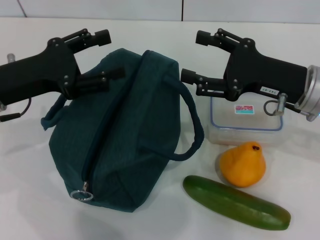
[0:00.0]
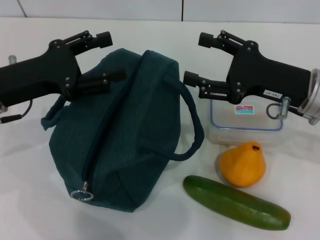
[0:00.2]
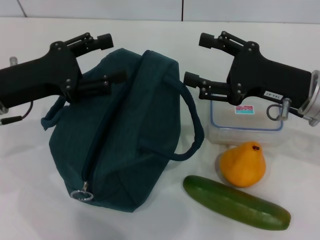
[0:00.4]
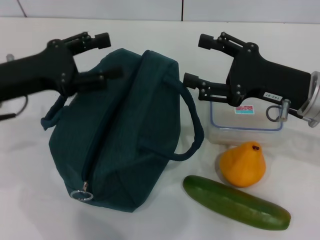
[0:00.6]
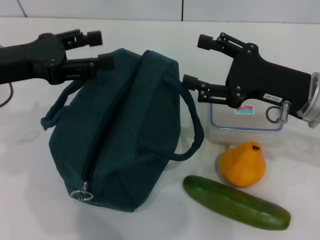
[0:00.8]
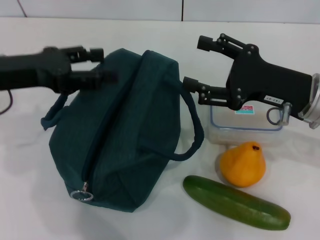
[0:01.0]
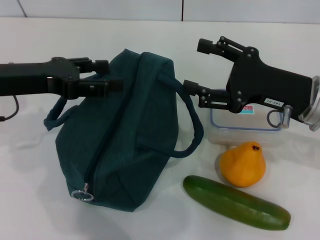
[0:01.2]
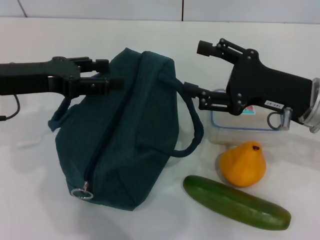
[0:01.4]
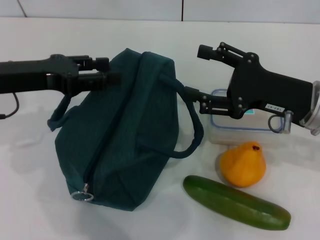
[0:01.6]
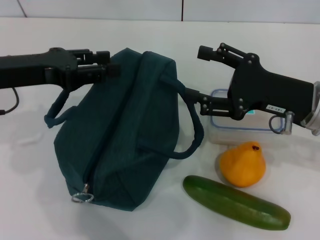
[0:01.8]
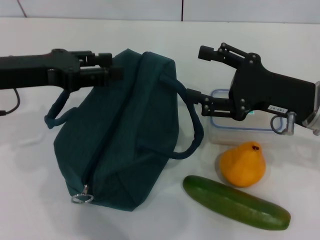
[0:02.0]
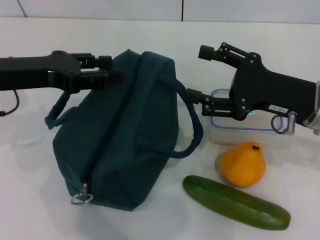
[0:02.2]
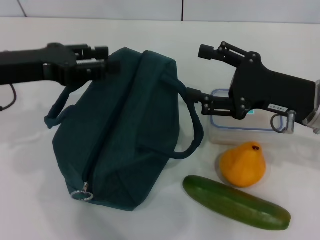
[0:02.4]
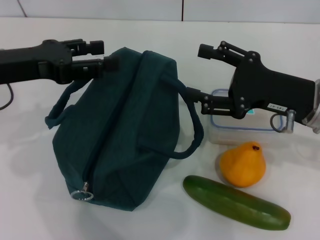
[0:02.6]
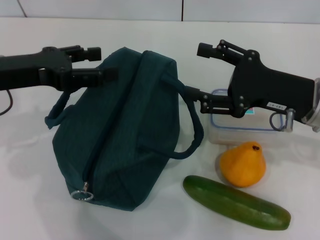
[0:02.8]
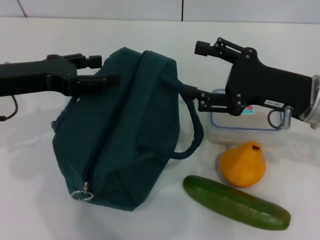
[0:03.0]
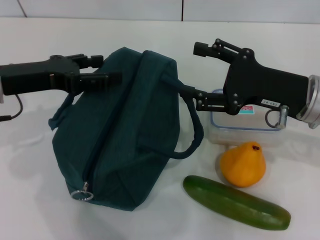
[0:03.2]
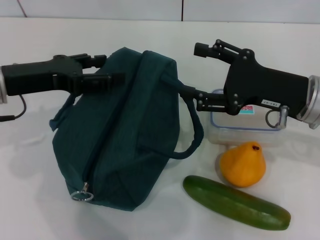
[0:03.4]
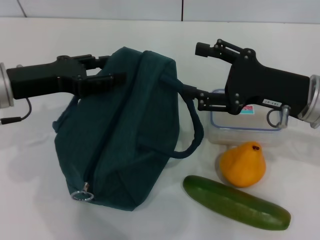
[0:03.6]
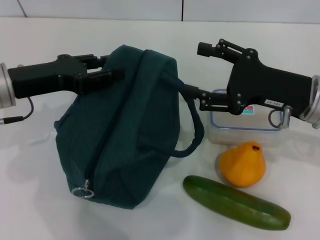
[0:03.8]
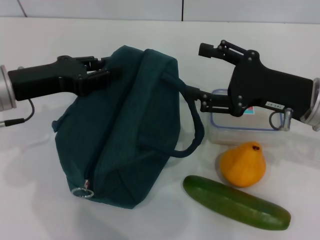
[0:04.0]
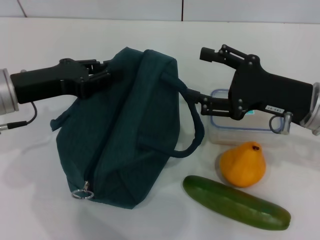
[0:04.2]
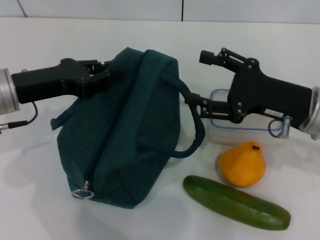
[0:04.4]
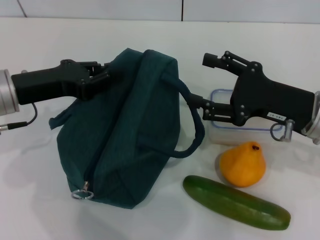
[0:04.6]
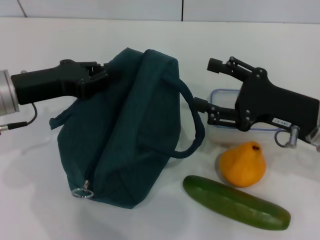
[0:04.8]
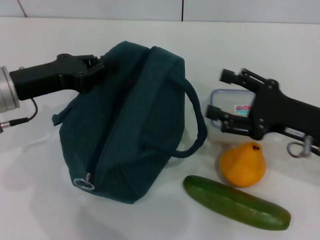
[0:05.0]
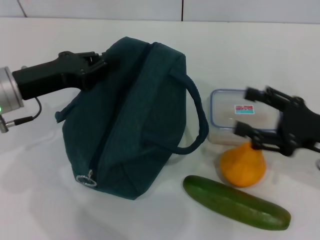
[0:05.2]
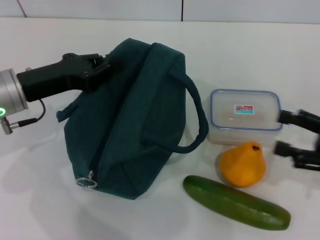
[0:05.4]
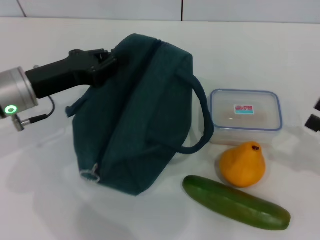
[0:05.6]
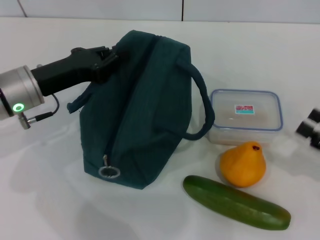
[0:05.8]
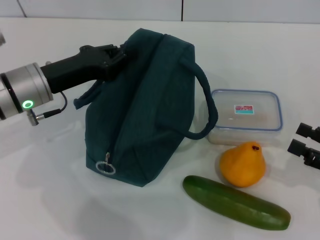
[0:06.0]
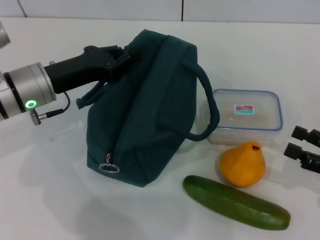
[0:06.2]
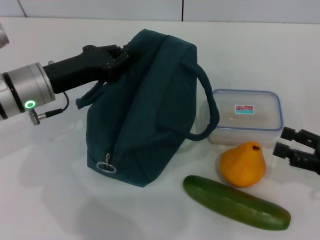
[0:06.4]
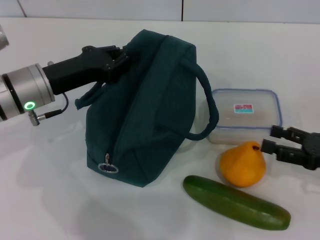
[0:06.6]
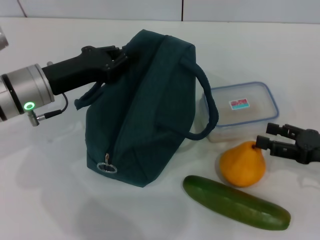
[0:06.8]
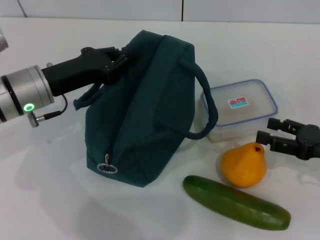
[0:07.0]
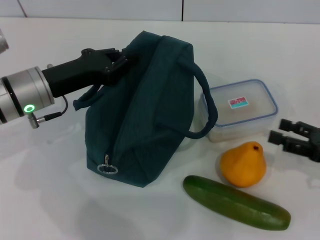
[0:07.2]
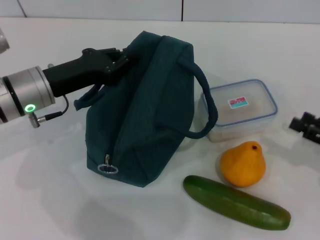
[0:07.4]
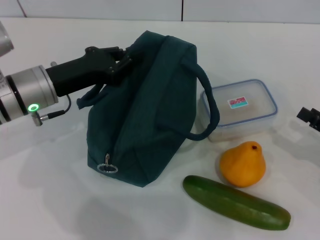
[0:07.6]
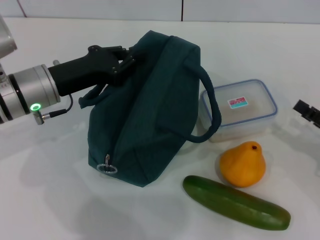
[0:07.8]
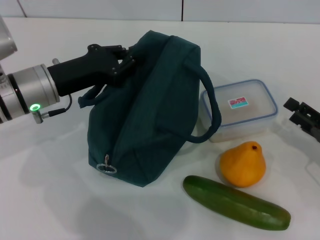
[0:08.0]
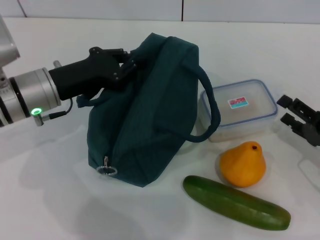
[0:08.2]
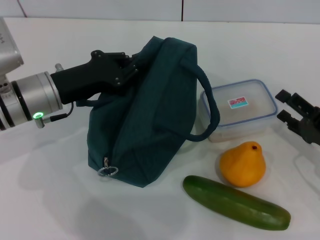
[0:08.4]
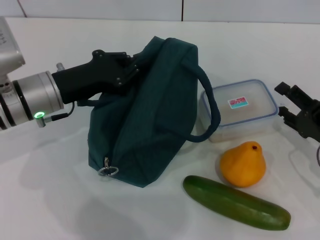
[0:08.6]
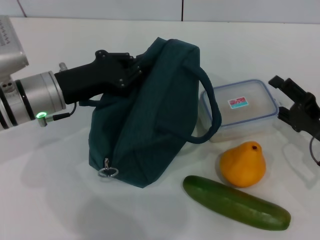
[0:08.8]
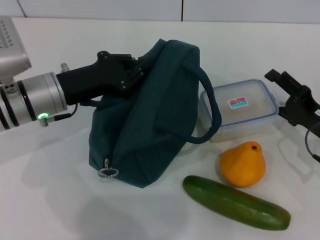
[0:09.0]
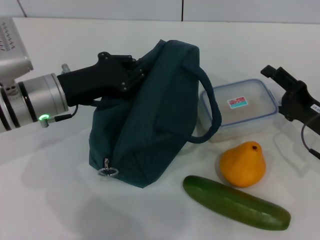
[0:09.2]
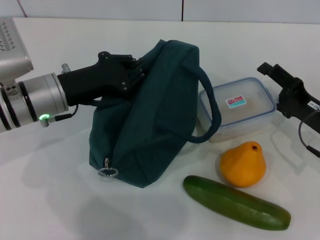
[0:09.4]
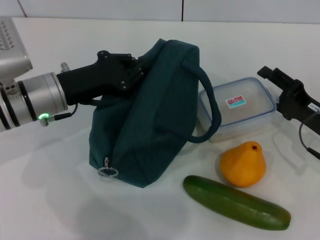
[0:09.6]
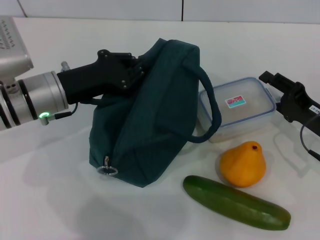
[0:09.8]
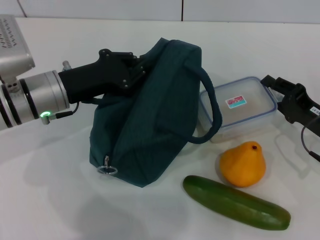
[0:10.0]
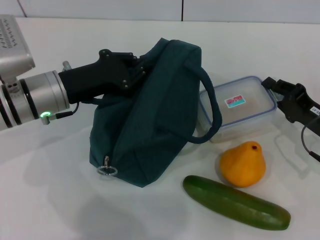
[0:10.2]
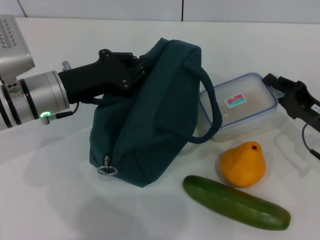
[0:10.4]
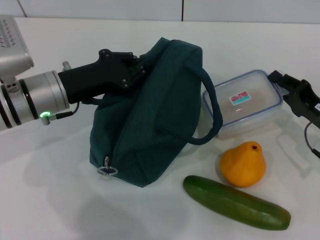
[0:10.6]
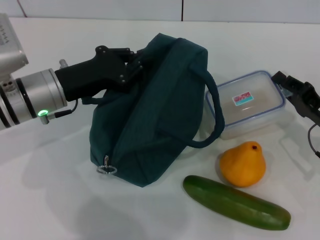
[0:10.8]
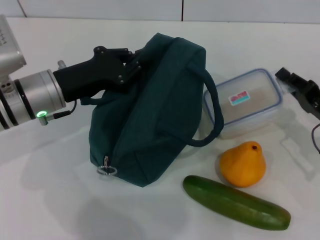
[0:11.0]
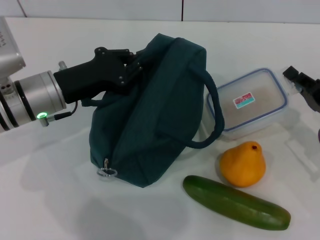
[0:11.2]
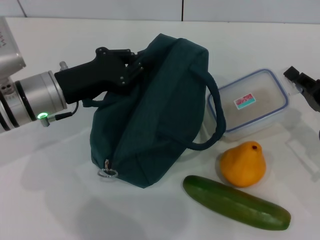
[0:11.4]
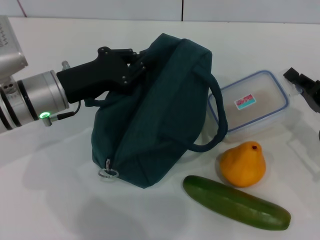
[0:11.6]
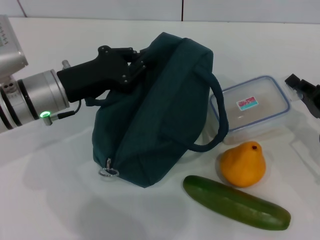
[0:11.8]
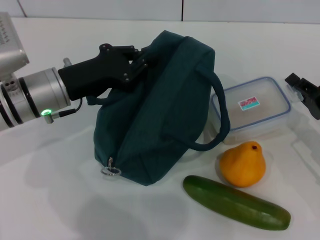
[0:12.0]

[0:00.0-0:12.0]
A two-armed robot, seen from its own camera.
Step, 0:00.0 to 0:06.2: Hold the lunch bag with your left hand.
Step, 0:06.4 to 0:11.0: Pick up the lunch box with your right hand.
0:01.6 to 0:03.0: There are only small adjustments of the grippers.
0:03.0 to 0:04.4: The left gripper closes.
0:04.4 to 0:06.0: The right gripper is displaced to the right, backward and downward by about 15 cm.
0:07.6 to 0:09.0: The right gripper goes about 10 cm to the left and forward.
0:09.0 to 0:10.4: The right gripper closes.
0:10.4 to 0:12.0: The grippers make only small movements.

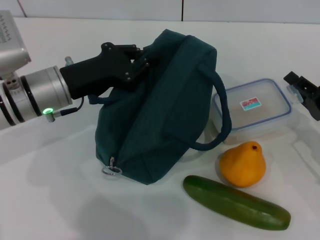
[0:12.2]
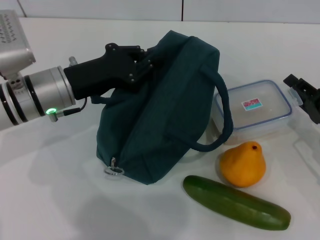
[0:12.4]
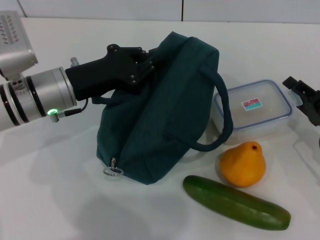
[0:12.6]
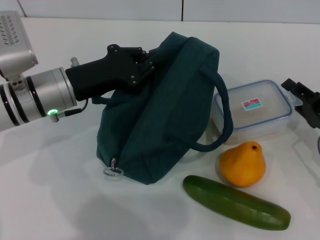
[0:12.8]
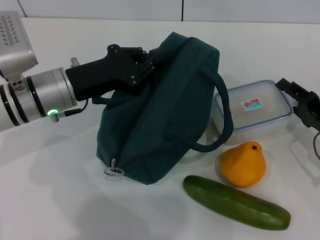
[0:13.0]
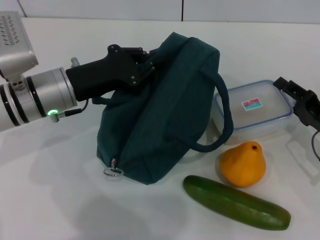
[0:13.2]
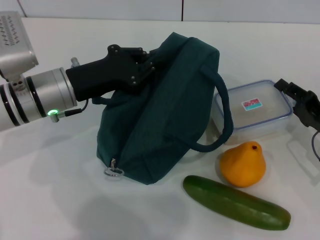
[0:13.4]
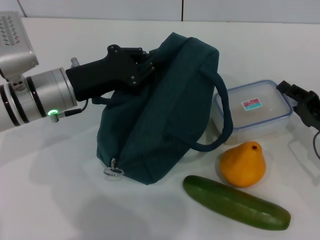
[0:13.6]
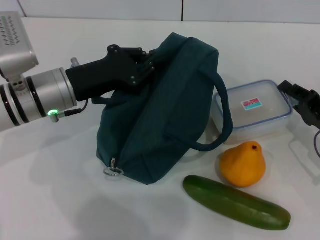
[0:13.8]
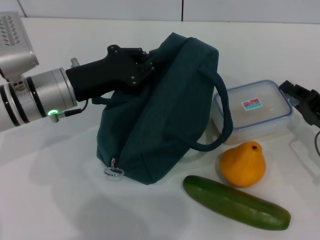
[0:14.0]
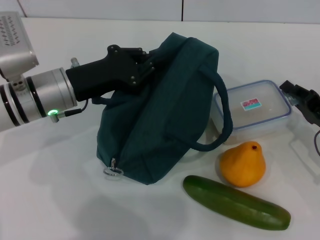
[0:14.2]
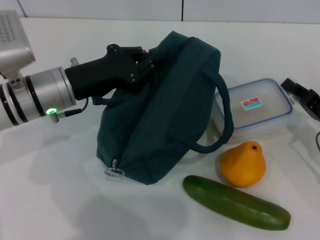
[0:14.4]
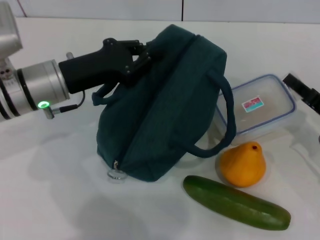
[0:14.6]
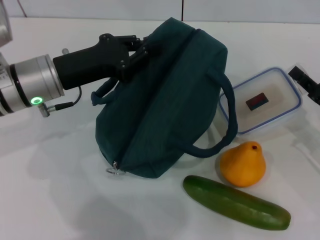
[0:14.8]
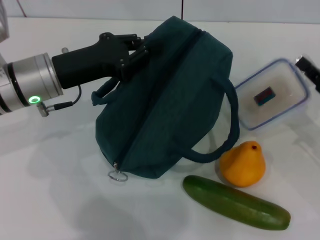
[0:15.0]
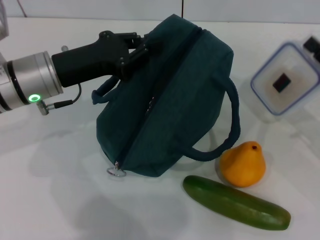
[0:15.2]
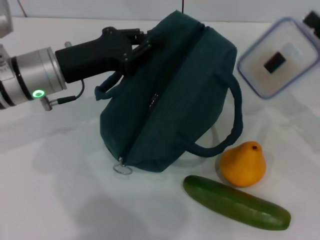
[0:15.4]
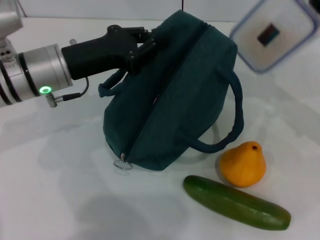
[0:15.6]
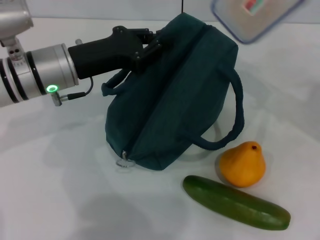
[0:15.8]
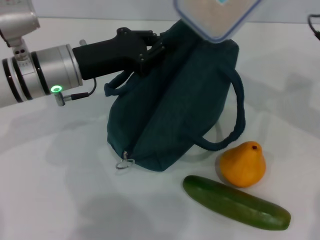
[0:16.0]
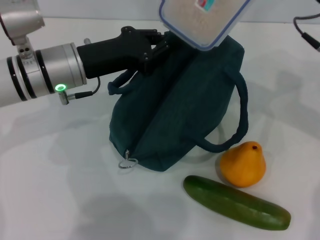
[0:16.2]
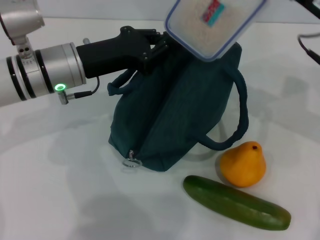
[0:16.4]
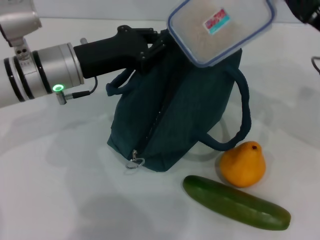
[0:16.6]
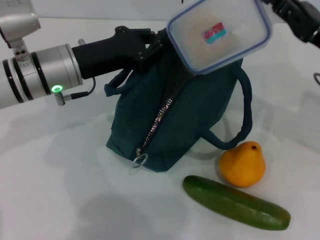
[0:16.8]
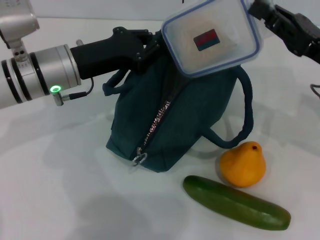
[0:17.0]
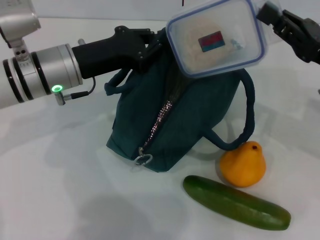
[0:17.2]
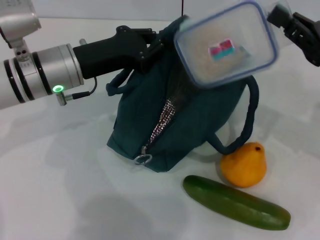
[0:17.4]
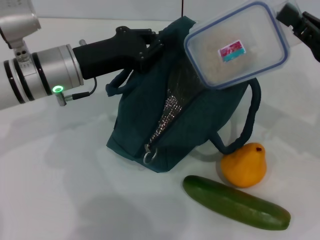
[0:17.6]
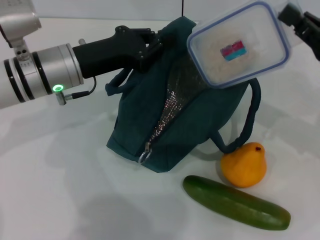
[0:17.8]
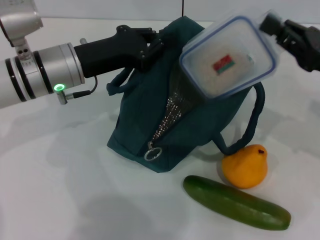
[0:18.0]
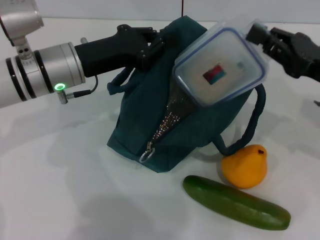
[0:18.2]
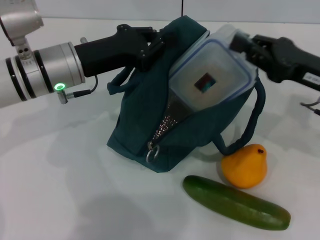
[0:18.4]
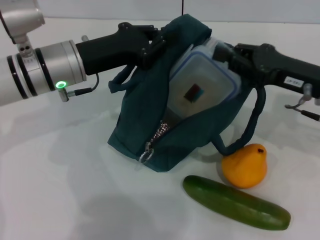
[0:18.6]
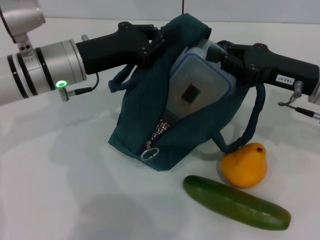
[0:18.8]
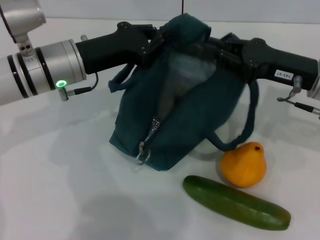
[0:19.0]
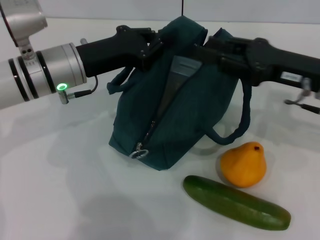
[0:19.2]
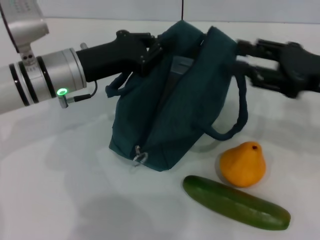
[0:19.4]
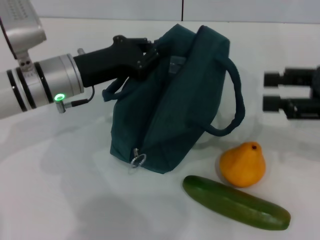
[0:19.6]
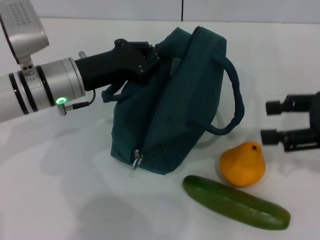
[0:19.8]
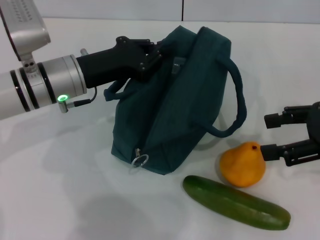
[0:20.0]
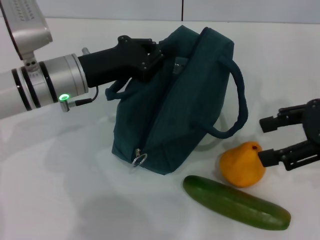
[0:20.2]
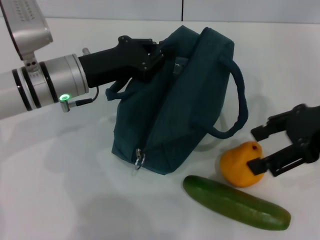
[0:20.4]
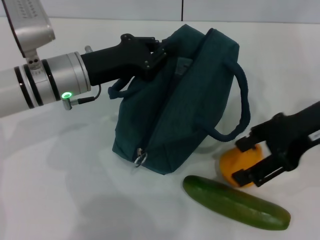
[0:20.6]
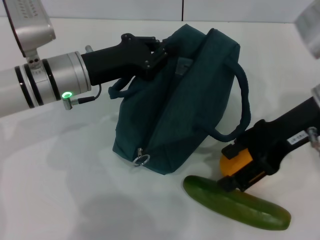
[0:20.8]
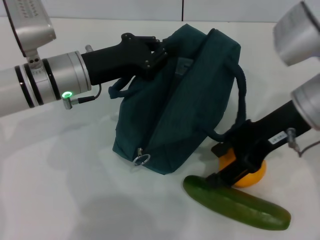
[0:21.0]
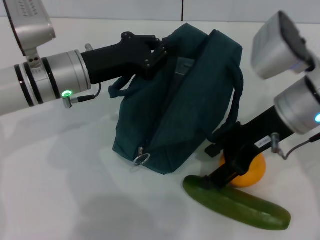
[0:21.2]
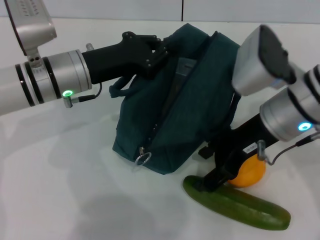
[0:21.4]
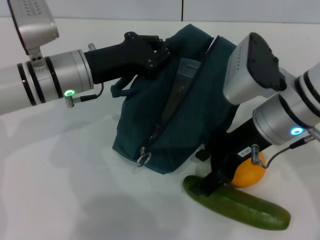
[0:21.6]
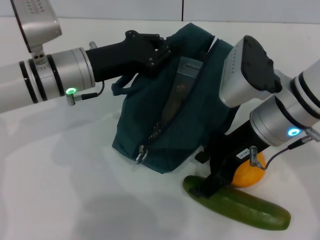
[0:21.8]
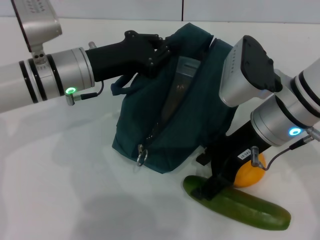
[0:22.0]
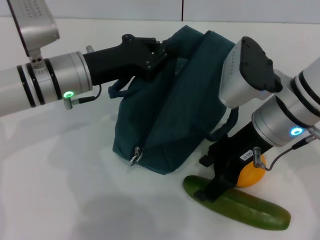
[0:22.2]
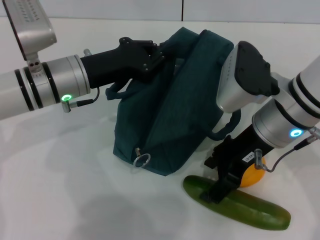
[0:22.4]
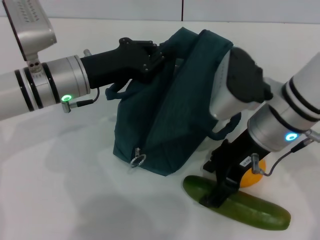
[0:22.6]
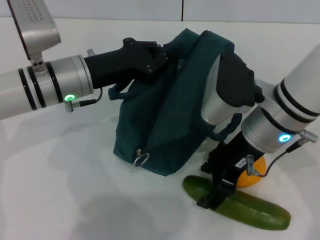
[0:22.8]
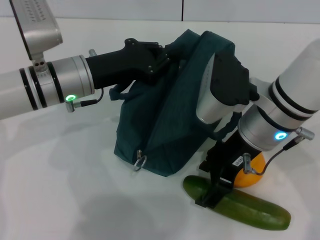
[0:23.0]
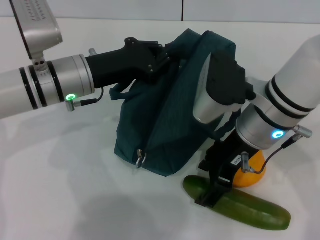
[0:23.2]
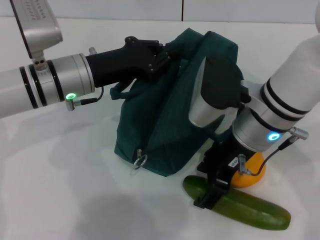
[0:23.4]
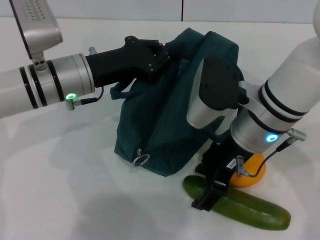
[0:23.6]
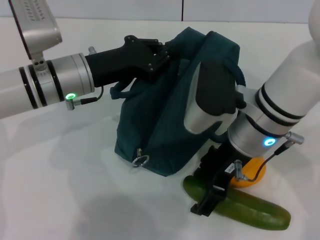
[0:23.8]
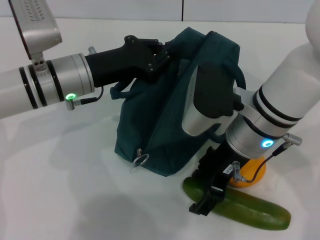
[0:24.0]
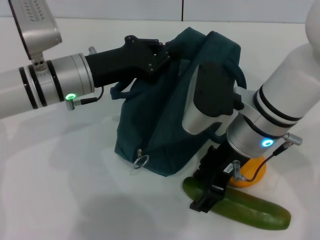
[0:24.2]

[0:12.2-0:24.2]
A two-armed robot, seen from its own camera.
Step, 0:12.2 to 0:19.2: Place the lunch box into the lunch bag with your right hand.
0:12.2 to 0:13.8: The grippers move only a little.
0:13.8 to 0:15.2: The right gripper moves upward, some 5 cm.
0:15.2 to 0:16.6: The right gripper moves upward and to the left, some 10 cm.
0:16.6 to 0:18.2: The grippers move only a little.
0:18.2 to 0:19.8: The right gripper is displaced upward by roughly 5 cm, and opens up.
0:19.8 to 0:21.2: The right gripper is displaced to the left by roughly 15 cm.
0:22.6 to 0:24.2: The grippers stay close to where they were, moving slightly.
